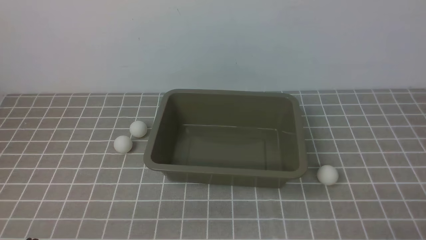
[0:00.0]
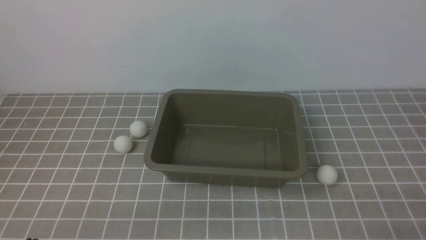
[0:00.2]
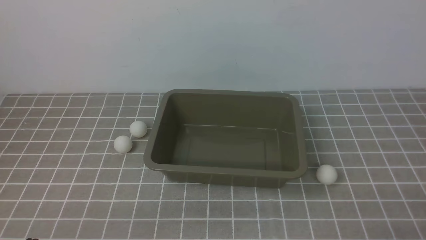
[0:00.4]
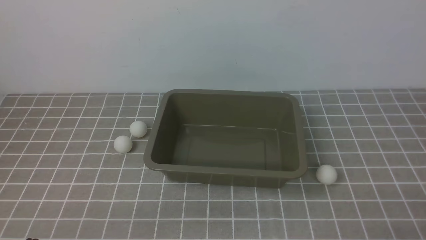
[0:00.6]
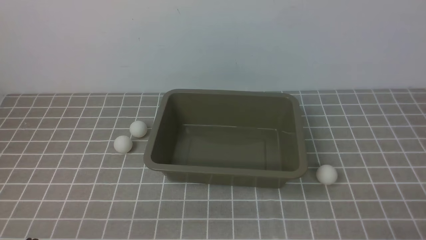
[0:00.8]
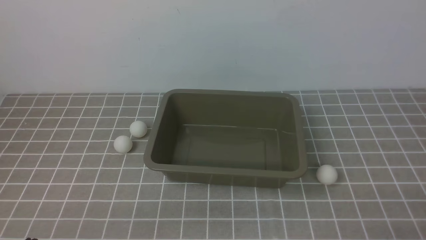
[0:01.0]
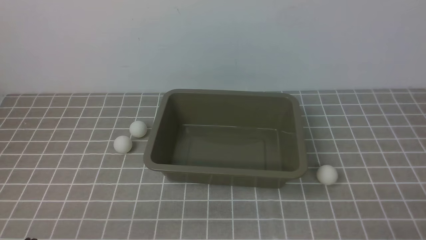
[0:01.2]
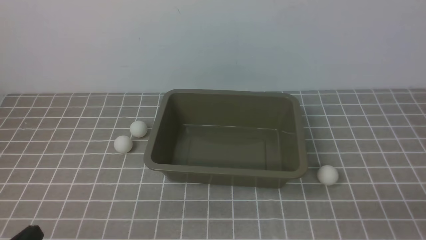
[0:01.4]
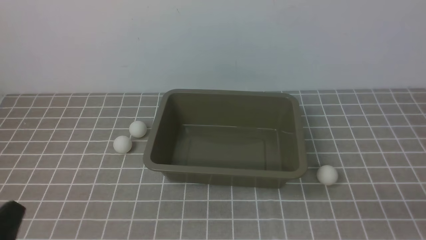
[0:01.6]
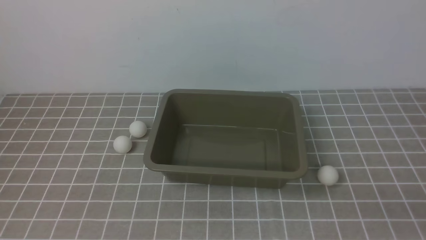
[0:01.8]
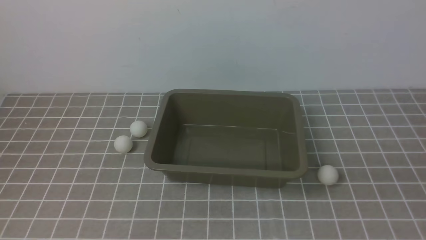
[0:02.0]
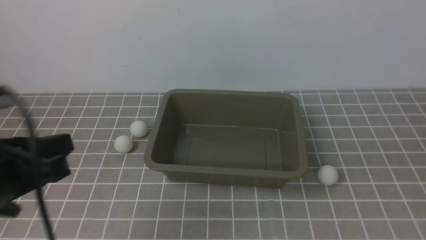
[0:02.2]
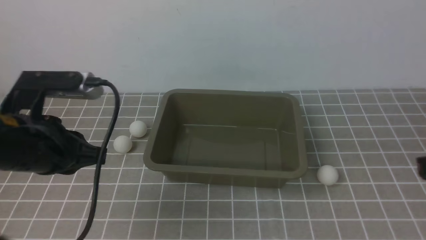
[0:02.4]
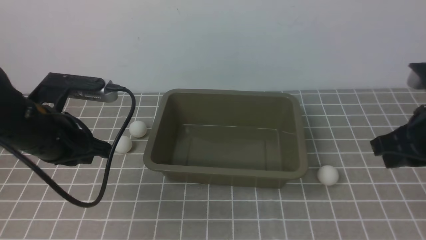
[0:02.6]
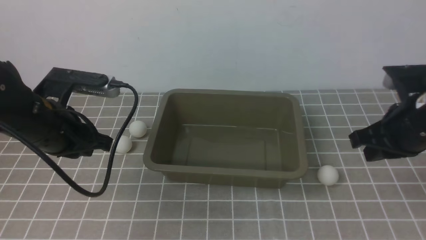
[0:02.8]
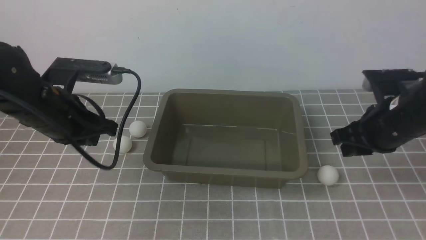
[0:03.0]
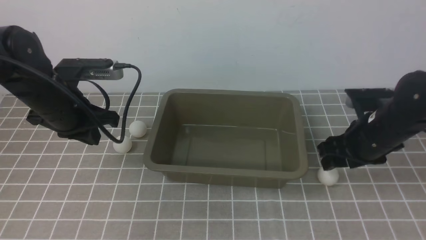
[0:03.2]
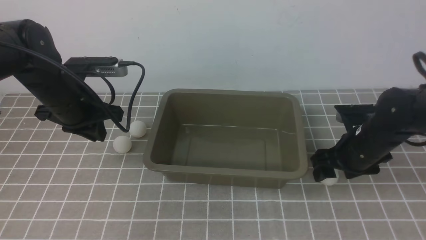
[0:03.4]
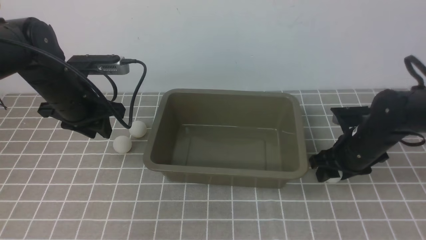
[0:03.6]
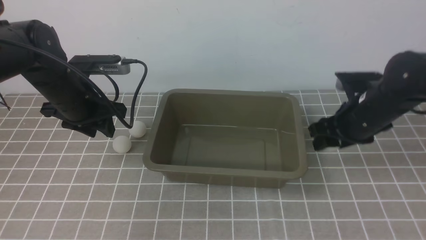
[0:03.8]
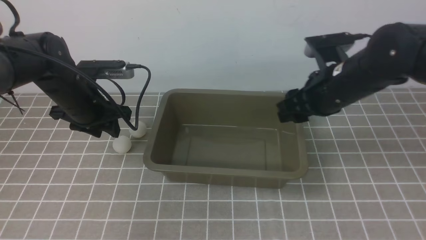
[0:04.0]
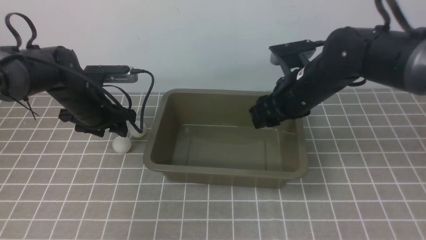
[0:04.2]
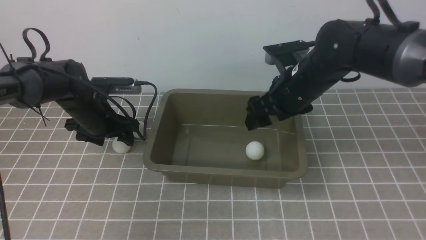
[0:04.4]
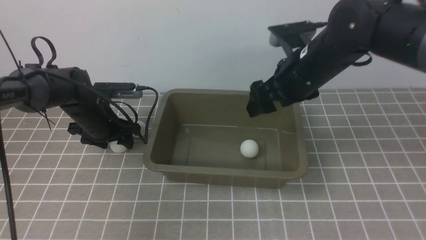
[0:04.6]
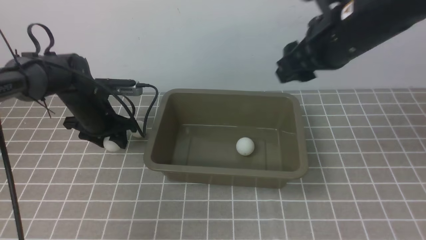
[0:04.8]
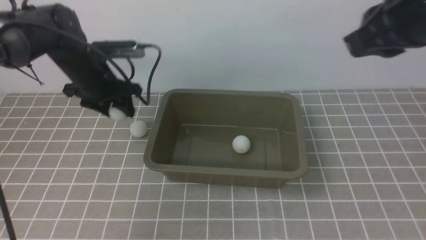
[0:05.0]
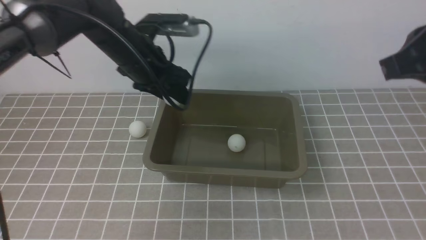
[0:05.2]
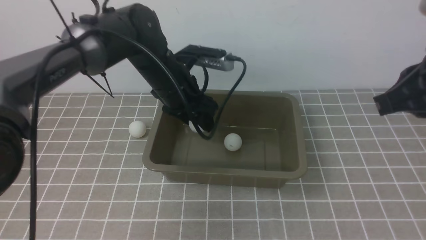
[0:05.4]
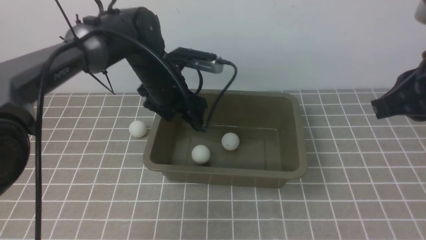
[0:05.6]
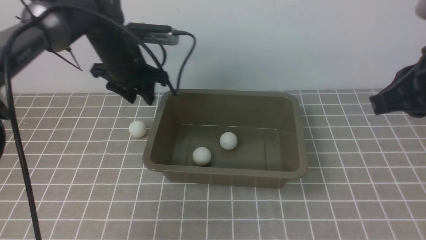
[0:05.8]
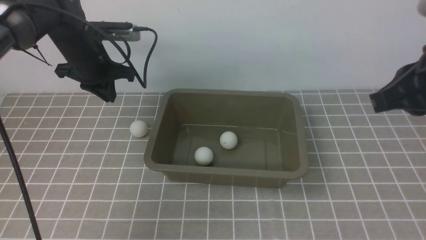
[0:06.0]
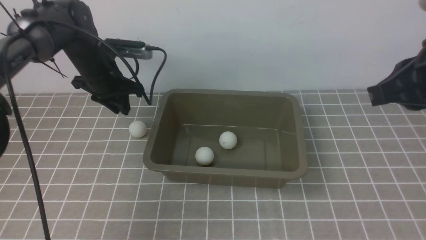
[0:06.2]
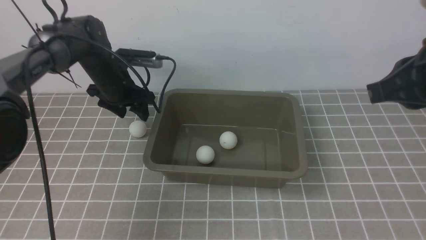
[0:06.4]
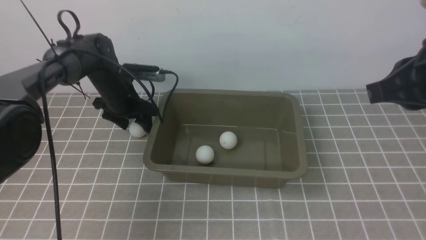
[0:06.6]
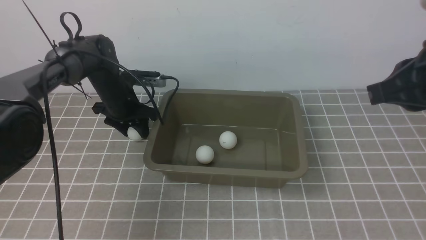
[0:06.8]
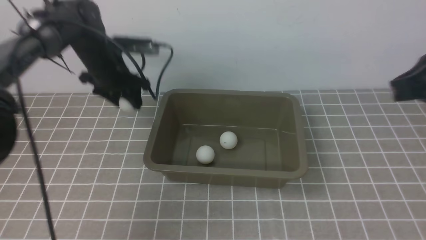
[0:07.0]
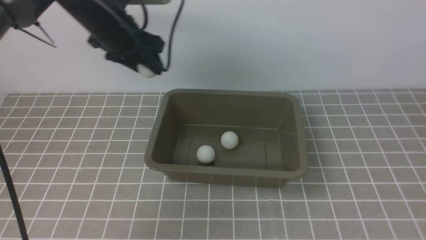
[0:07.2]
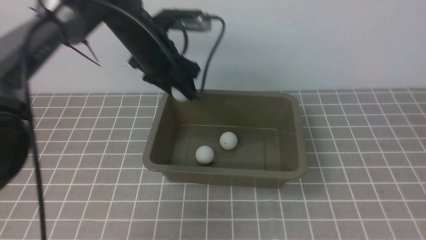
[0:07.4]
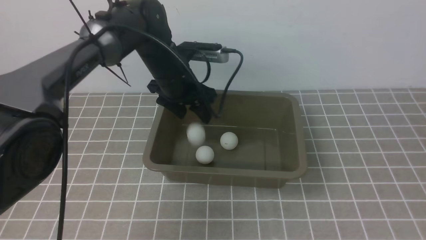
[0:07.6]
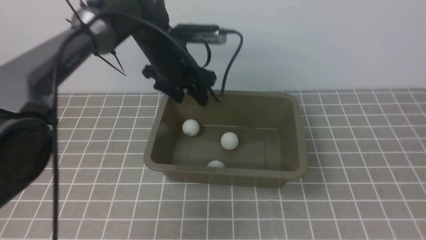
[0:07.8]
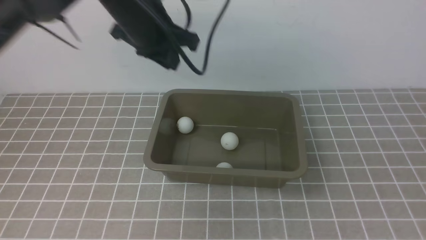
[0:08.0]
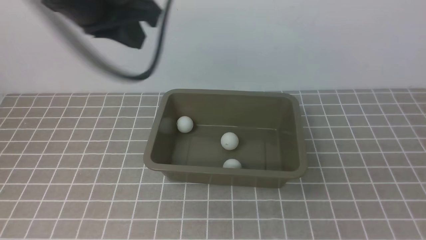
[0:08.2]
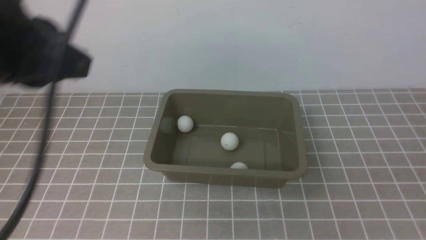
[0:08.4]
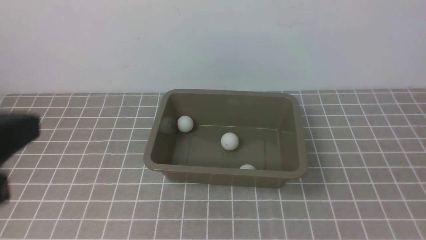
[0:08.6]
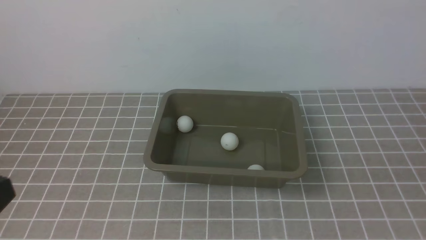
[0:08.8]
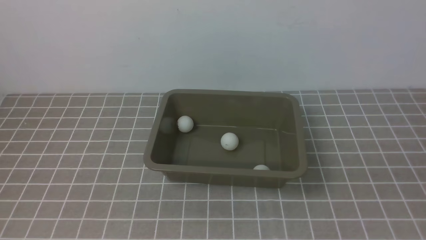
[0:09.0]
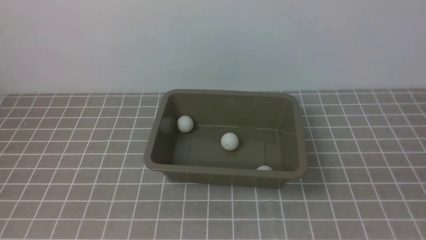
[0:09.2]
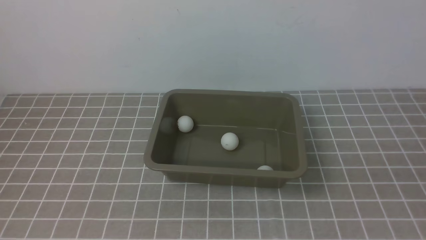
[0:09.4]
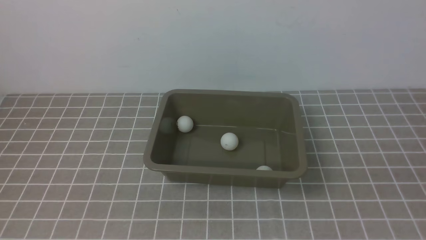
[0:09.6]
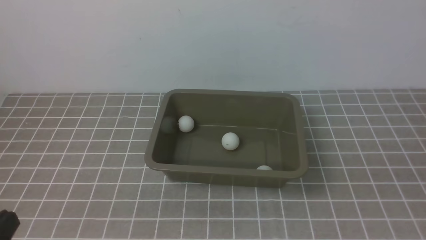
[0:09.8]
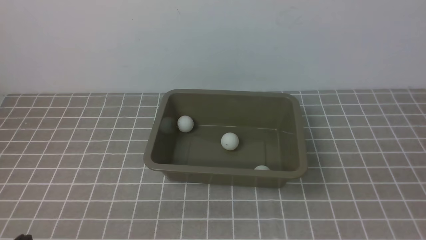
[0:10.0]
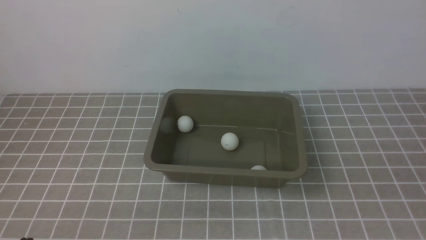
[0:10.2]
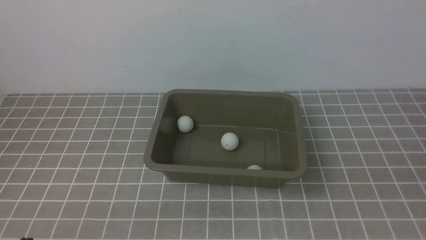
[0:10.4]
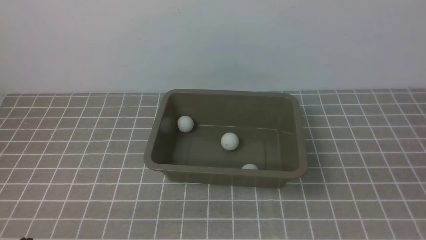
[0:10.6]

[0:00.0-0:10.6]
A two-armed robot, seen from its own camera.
Step, 0:00.0 to 0:03.6: use the right arm to clamp the table tennis ball closest to it.
Step, 0:04.0 to 0:04.2: use the right arm to put the table tennis ball into the box.
Step, 0:04.6 to 0:04.8: use the left arm to clamp the table tennis ball closest to it.
Step, 0:05.0 to 0:05.6: use the left arm to put the table tennis ball into the box.
Step, 0:05.8 to 0:06.8: use the left arm to clamp the table tennis ball closest to it.
Step, 0:07.0 to 0:07.6: use the left arm to put the table tennis ball into the box.
0:01.6 to 0:03.0: The two grippers go roughly 25 cm forward. The right gripper opens up.
0:03.0 to 0:04.6: The left gripper goes some 15 cm forward and downward, and opens up. The right gripper is displaced to the left and upward by approximately 15 cm, and opens up.
0:04.6 to 0:06.0: The left gripper is displaced upward by roughly 10 cm, reaches approximately 15 cm to the right, then returns, and closes up; the right gripper is displaced backward, to the right and upward by about 20 cm, and closes up.
0:06.0 to 0:07.6: The left gripper shifts approximately 10 cm to the right, moves about 10 cm downward and comes back, and opens up, while the right gripper shifts approximately 20 cm backward and to the right.
0:07.6 to 0:09.0: The left gripper is displaced backward by about 40 cm, and closes up. Meanwhile the right gripper shifts by approximately 5 cm.

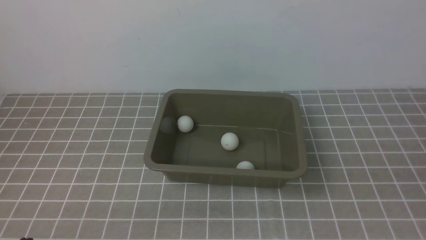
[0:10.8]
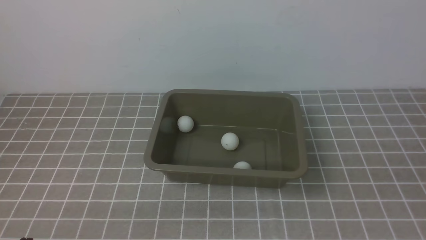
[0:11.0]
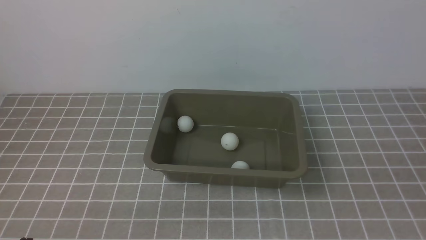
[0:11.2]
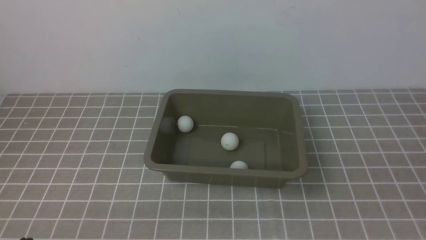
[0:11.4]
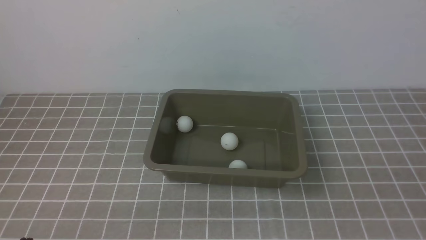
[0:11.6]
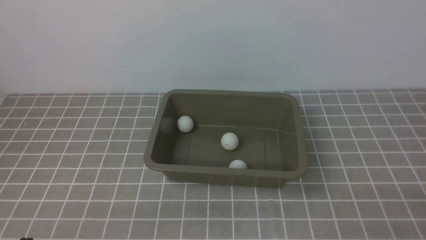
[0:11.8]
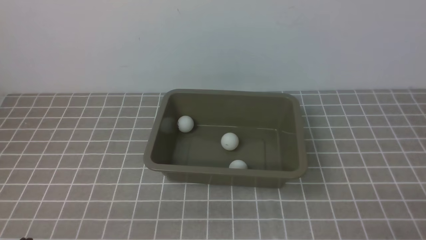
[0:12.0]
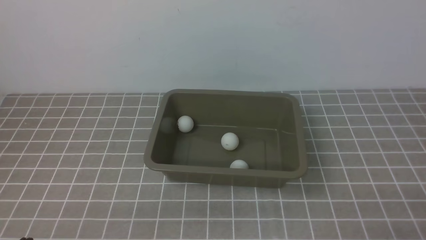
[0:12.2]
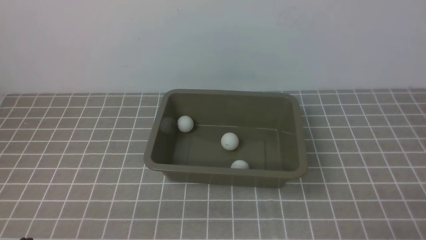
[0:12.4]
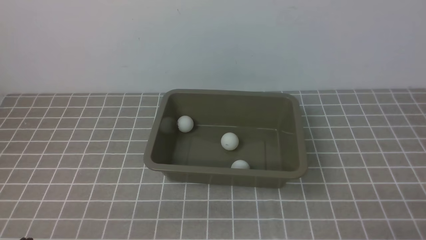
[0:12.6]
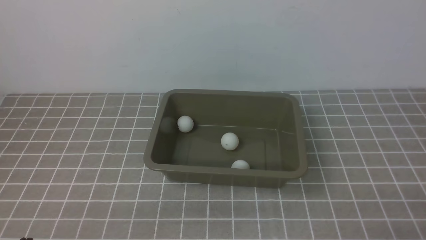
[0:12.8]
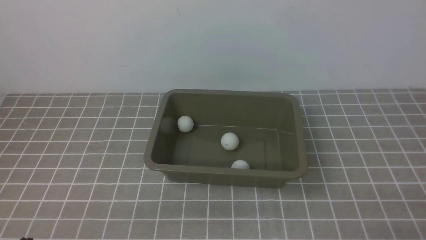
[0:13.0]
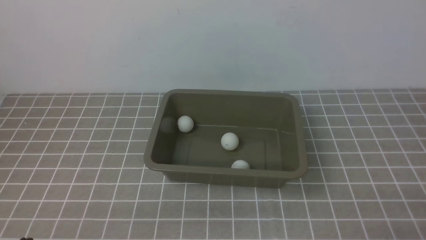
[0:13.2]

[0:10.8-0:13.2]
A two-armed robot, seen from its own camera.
0:12.0 to 0:13.2: Both grippers stay put.
